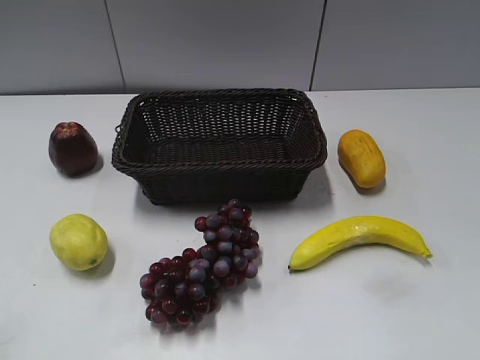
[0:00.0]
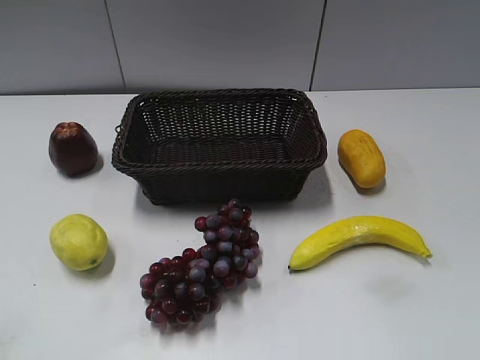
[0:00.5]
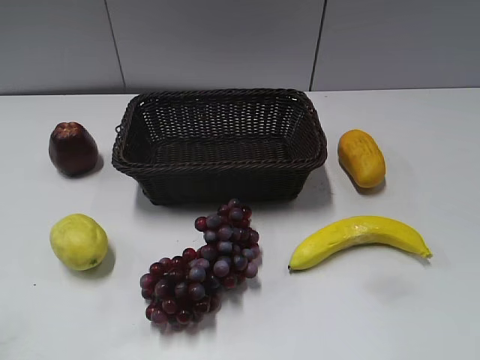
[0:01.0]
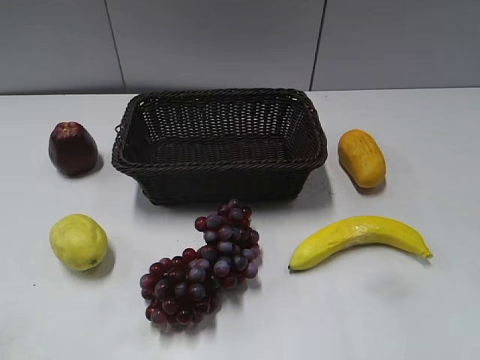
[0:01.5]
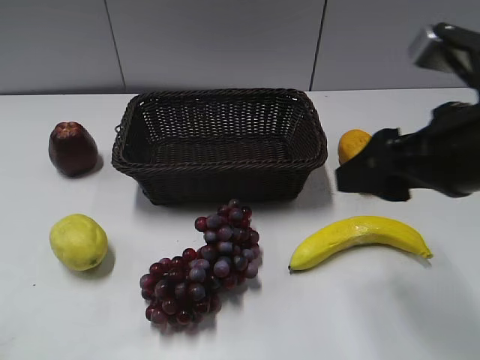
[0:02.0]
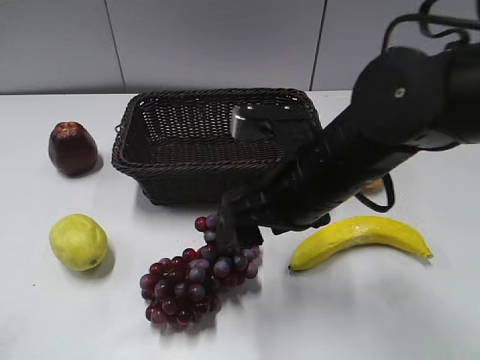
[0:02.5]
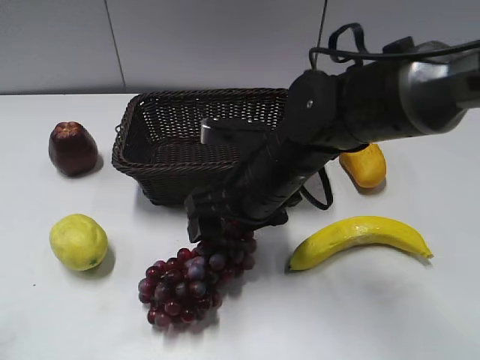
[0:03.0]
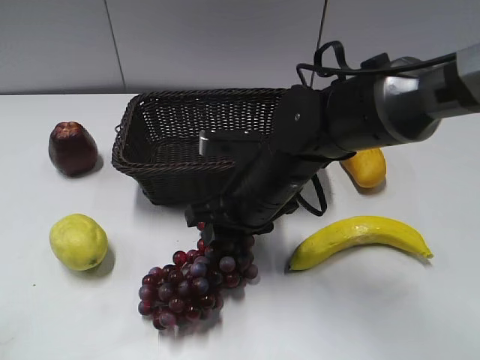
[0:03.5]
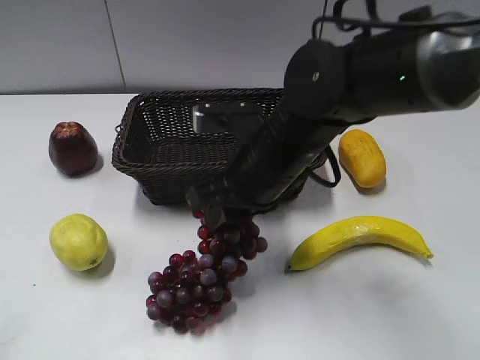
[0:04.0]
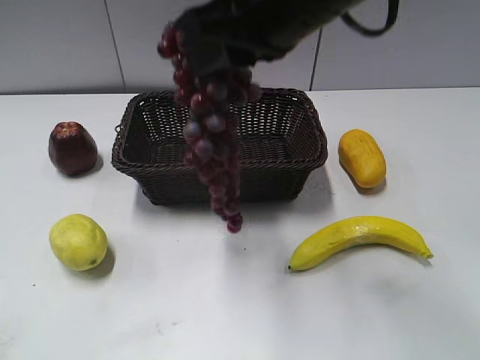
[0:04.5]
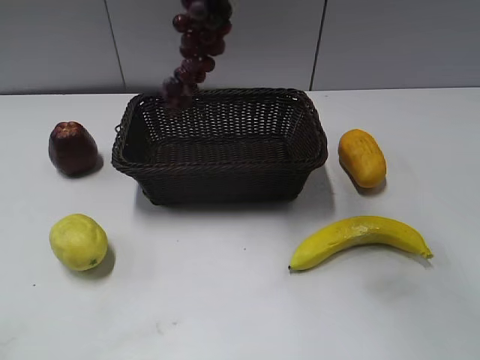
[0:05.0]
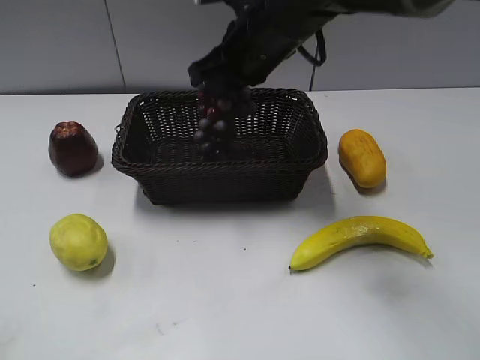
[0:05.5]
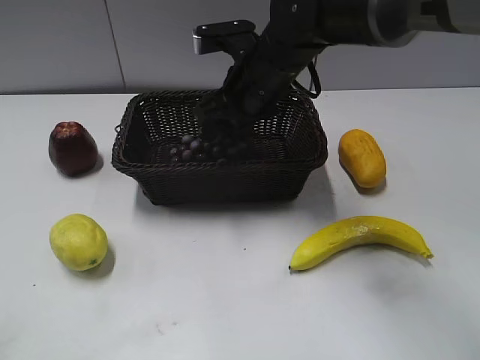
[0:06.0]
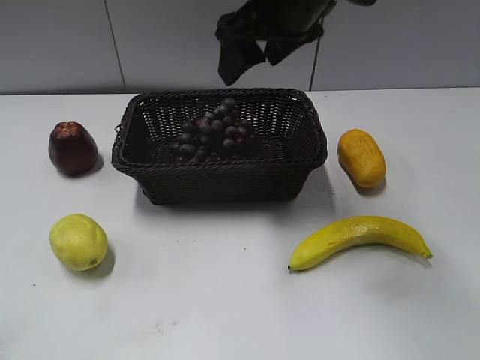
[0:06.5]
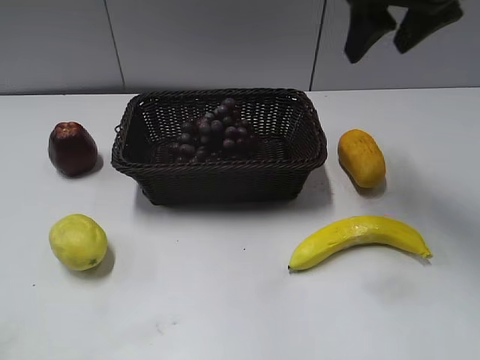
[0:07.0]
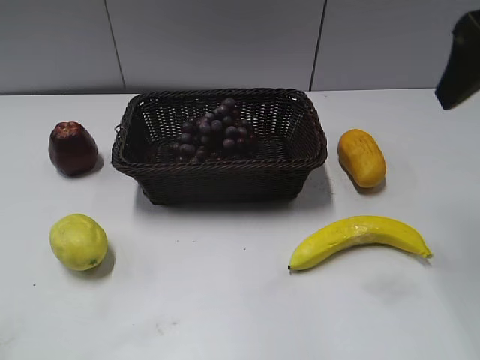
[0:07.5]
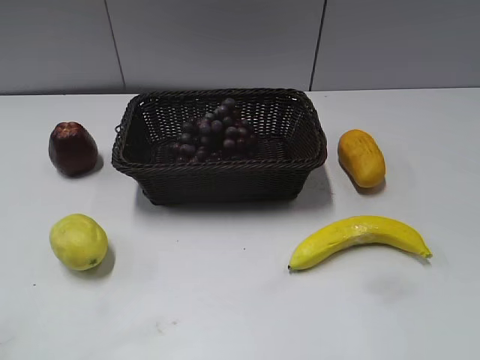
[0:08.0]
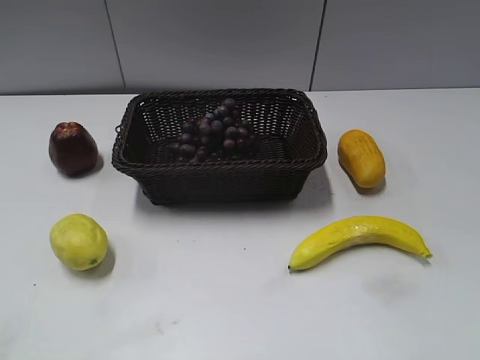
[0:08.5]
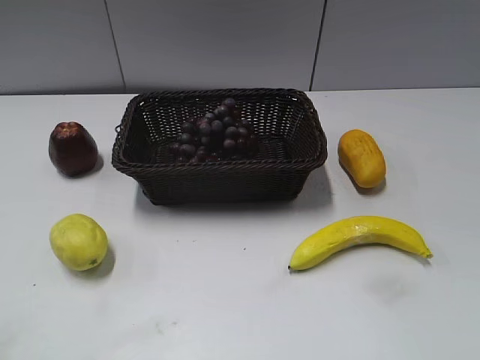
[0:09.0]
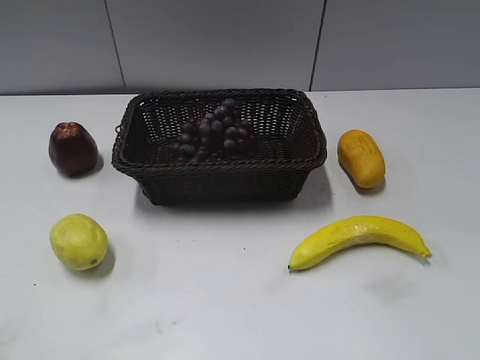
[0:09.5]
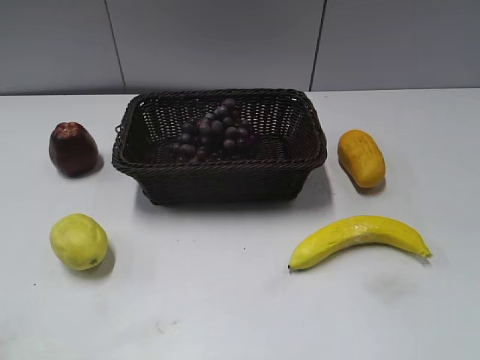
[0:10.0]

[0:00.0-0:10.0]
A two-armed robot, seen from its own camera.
Step, 0:02.0 to 0:03.5: Grasp the grape with right gripper.
Step, 0:04.0 to 0:06.0: Place the grape in the basket with right gripper.
0:02.0 to 0:04.0: The right gripper heads to the left, downward and forward, covering about 20 cm, and closes up.
0:04.0 to 0:06.0: The right gripper shifts about 10 cm forward, goes upward and returns, about 20 cm each way, and opens.
0:06.0 to 0:08.0: The right gripper is displaced backward, to the right and upward by approximately 40 cm.

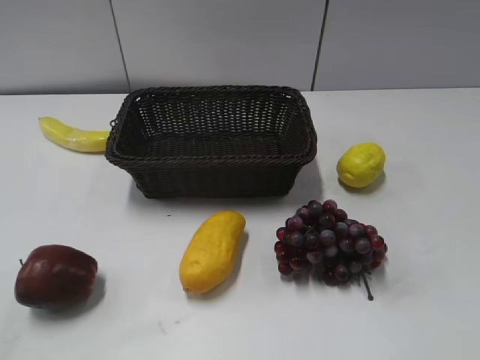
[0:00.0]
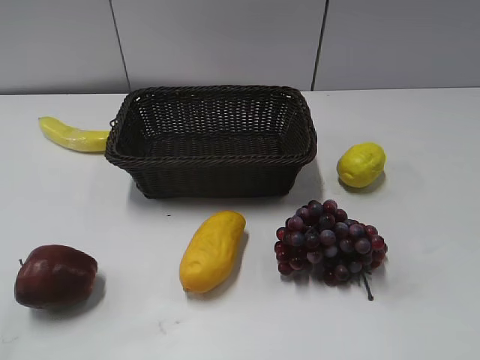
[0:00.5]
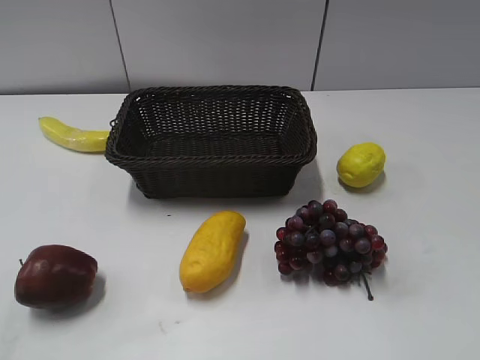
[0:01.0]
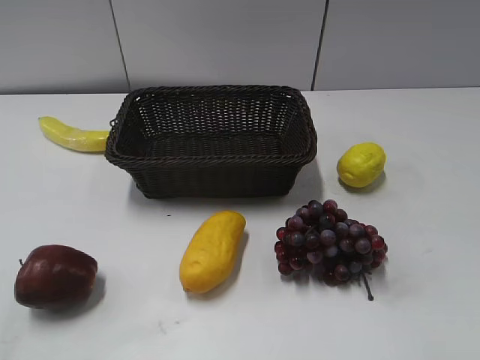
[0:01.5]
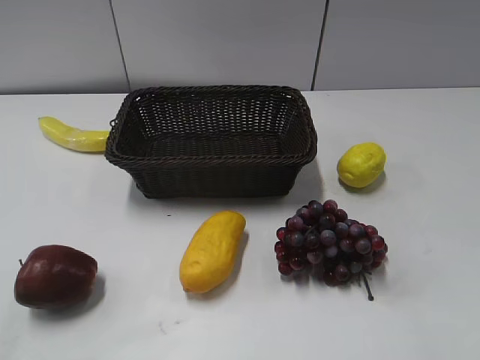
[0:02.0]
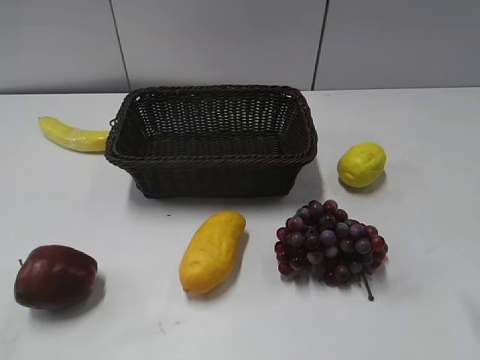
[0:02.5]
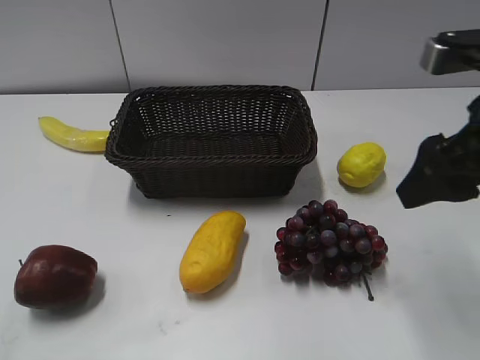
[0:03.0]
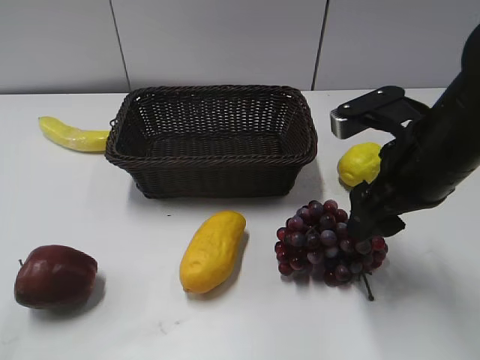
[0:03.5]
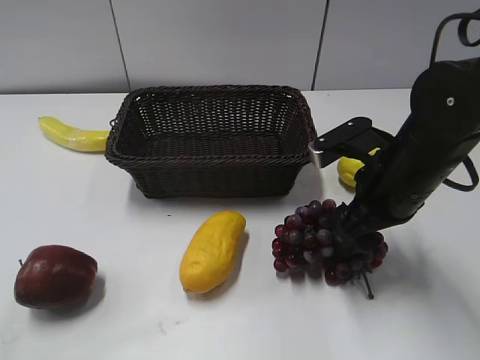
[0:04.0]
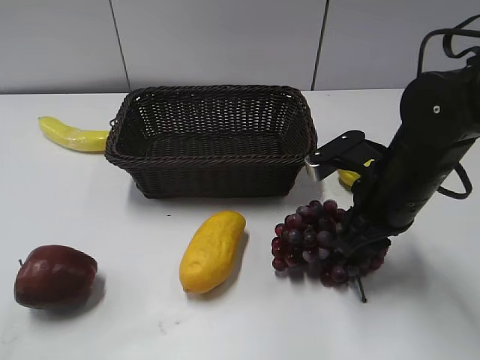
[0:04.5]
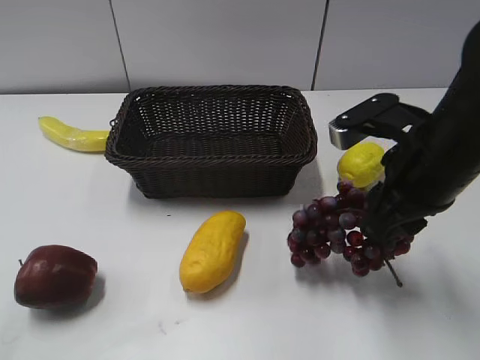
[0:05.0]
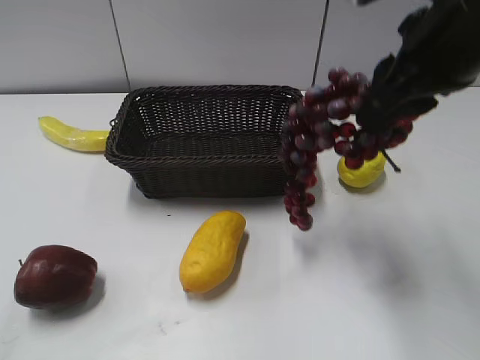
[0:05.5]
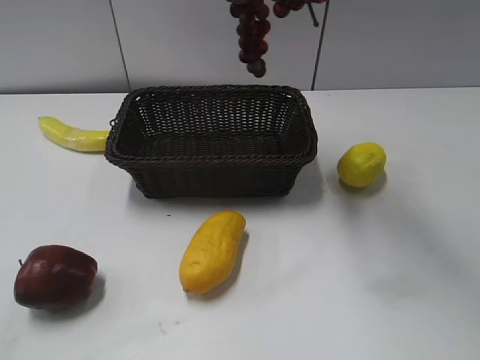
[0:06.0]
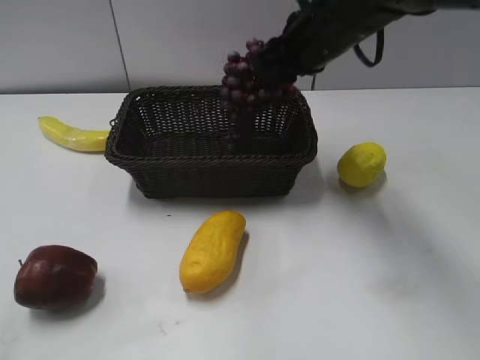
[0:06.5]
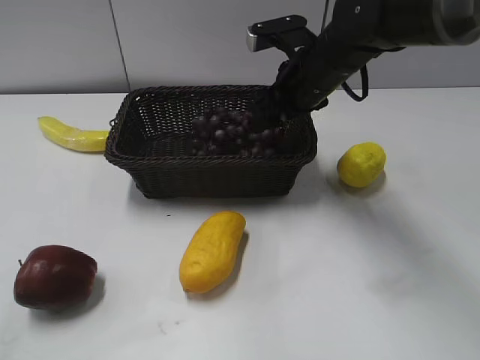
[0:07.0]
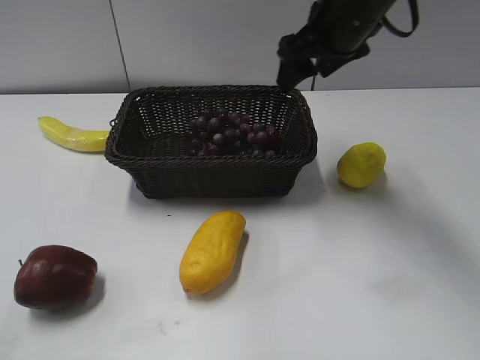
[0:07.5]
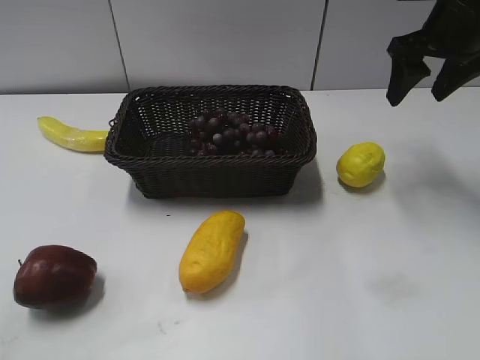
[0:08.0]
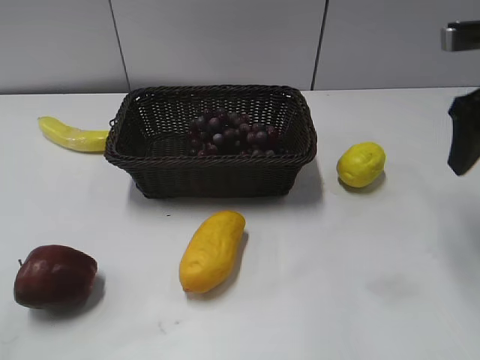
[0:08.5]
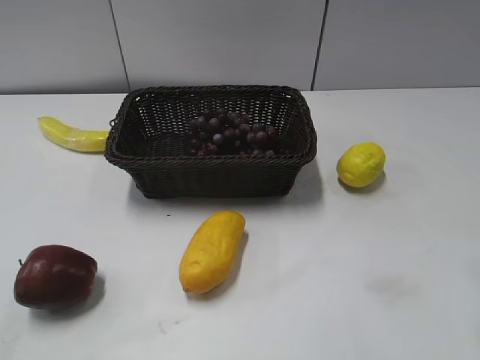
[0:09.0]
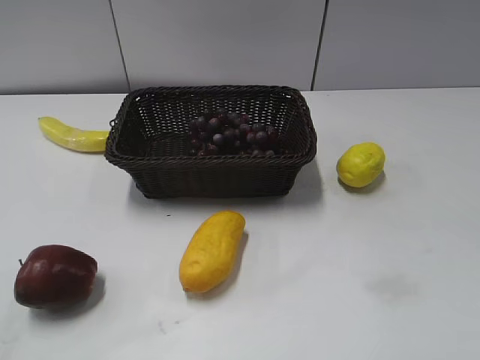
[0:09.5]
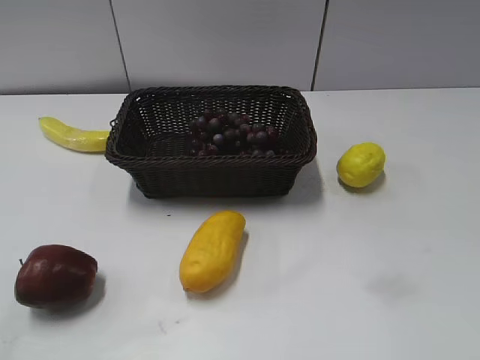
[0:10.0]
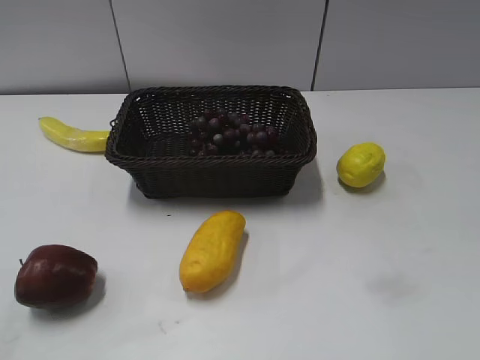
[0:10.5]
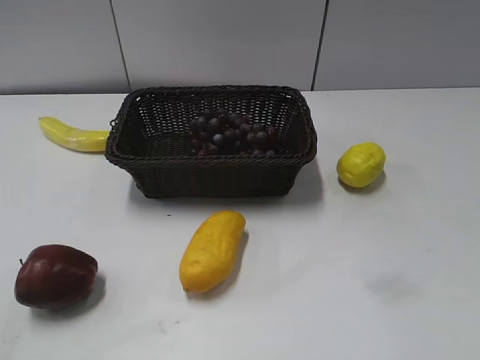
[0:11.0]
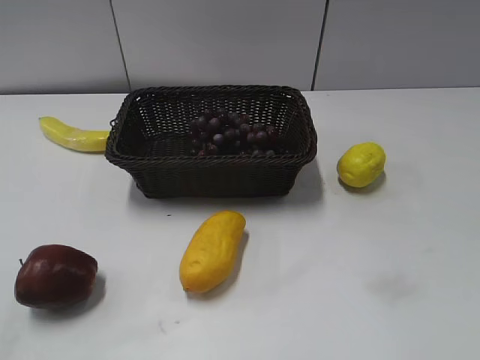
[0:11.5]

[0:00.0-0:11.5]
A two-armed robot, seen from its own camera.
Step, 0:03.0 to 0:05.0: Grasp the grape with right gripper.
Step, 0:05.5 to 0:07.0: Place the grape in the basket with right gripper.
0:02.0 to 0:04.0: The right gripper moves forward, downward and to the left, roughly 25 cm.
0:04.0 to 0:06.0: The right gripper moves upward, about 20 cm, and closes its fingers.
0:06.0 to 0:07.5: The right gripper moves downward and forward, about 15 cm, and opens up.
0:07.5 to 0:09.5: The right gripper is displaced backward and to the right by about 35 cm.

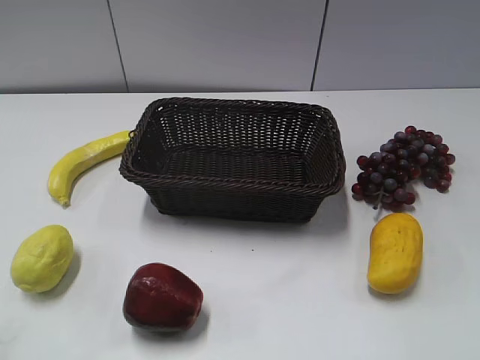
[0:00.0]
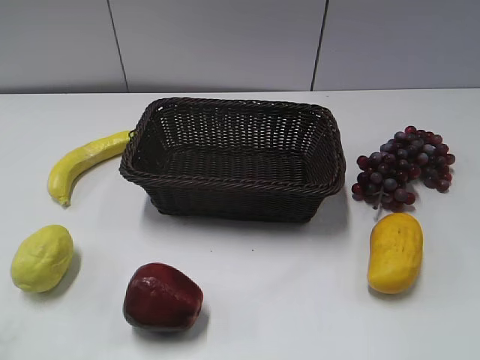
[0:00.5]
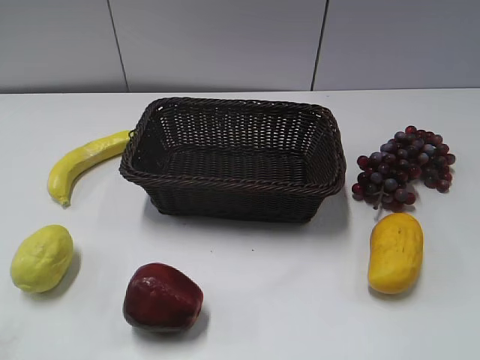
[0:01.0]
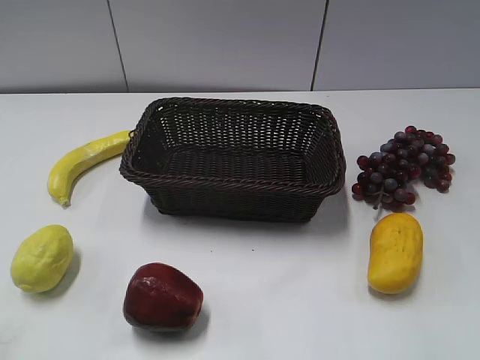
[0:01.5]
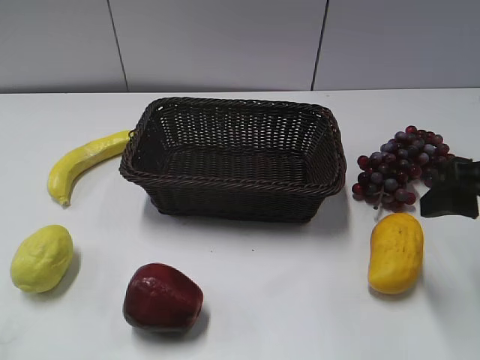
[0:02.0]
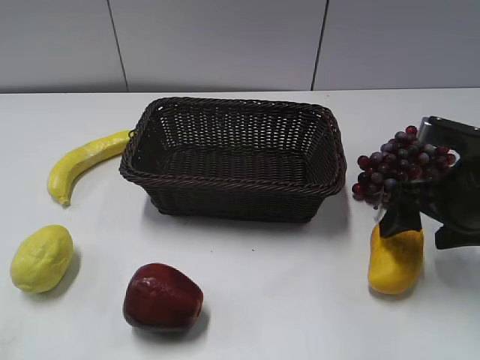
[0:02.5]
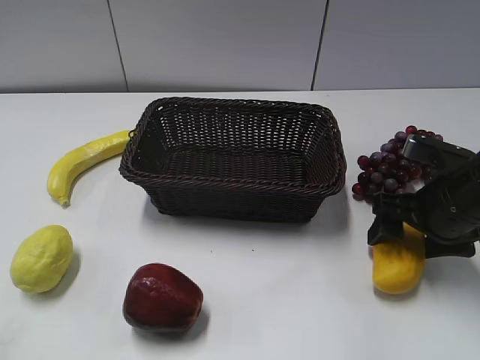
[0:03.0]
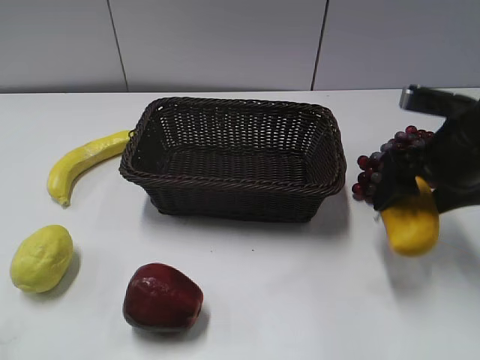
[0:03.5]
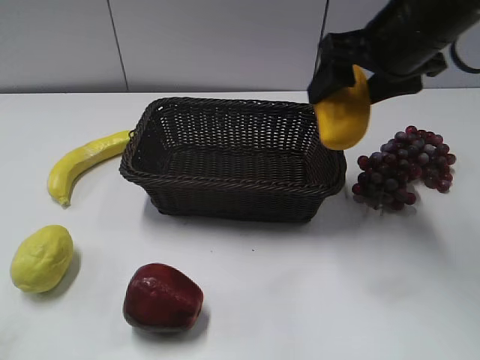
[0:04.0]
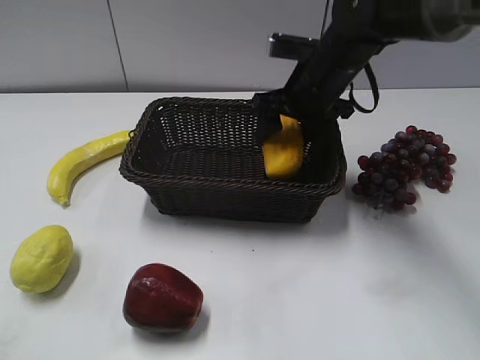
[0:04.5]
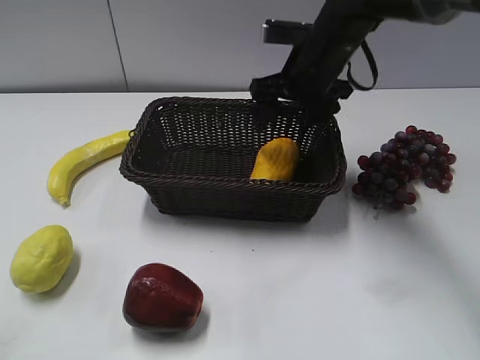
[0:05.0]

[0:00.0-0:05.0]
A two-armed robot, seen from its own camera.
Step, 0:02.0 to 0:03.0: Grasp the mango with right gripper.
Step, 0:03.5 to 0:04.5: Place the mango in the basket with right gripper.
0:02.5 to 0:05.0: The right gripper heads forward and to the left, covering about 20 cm, and closes and opens again.
